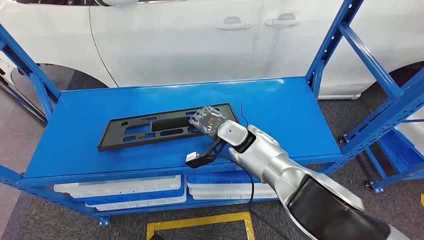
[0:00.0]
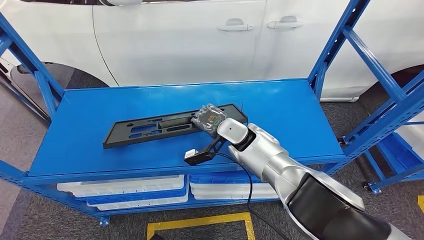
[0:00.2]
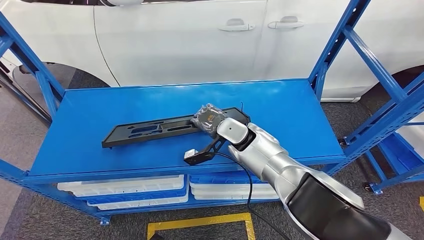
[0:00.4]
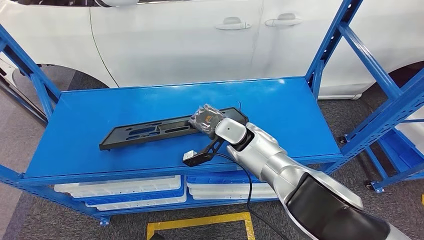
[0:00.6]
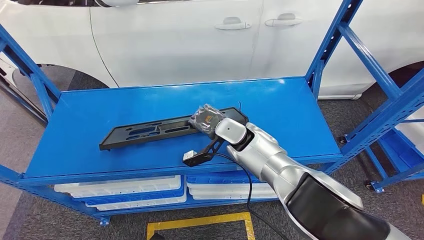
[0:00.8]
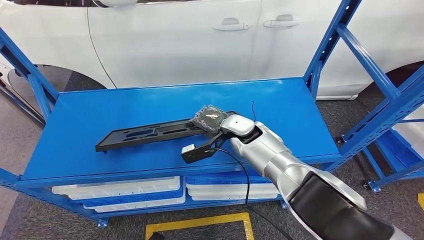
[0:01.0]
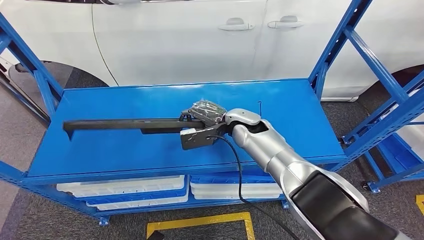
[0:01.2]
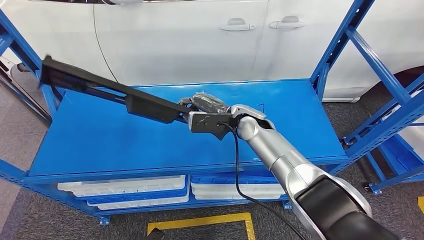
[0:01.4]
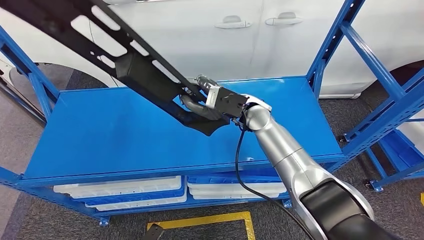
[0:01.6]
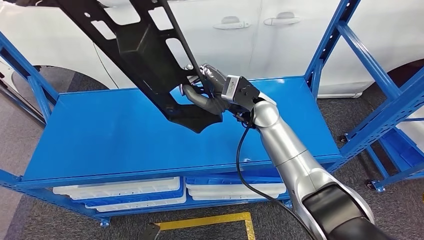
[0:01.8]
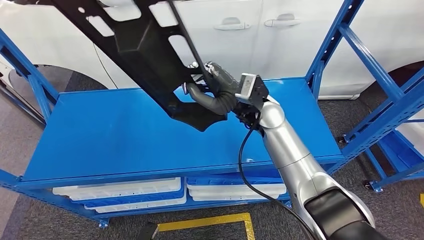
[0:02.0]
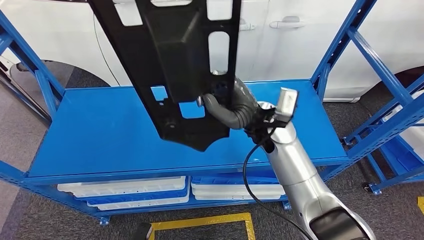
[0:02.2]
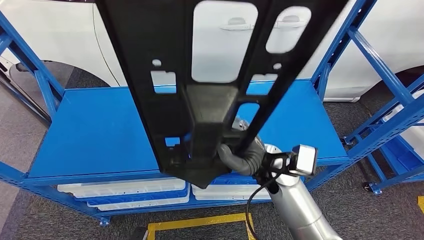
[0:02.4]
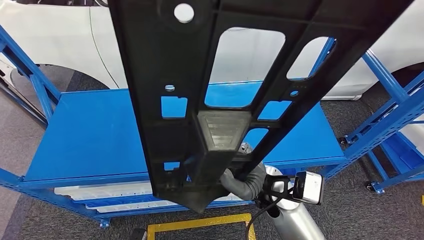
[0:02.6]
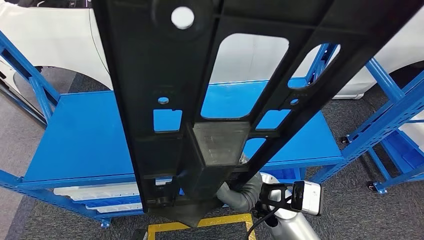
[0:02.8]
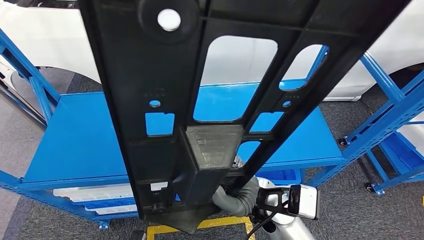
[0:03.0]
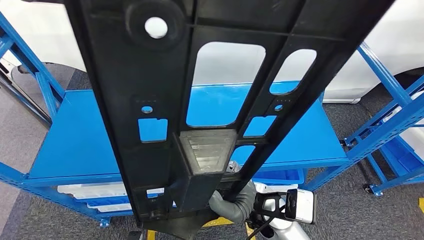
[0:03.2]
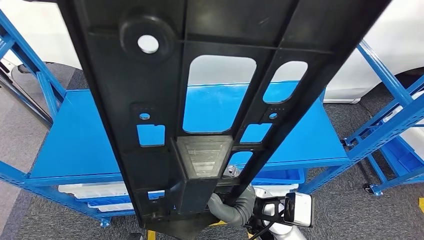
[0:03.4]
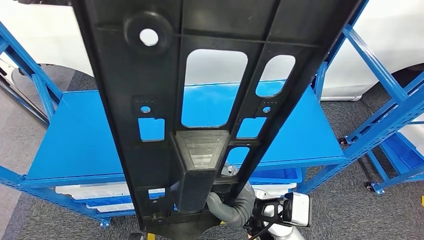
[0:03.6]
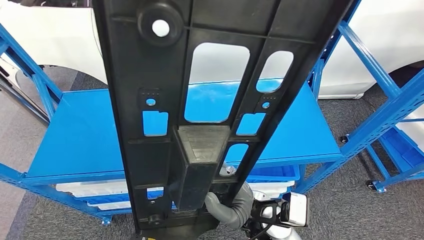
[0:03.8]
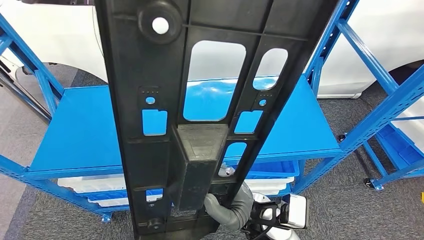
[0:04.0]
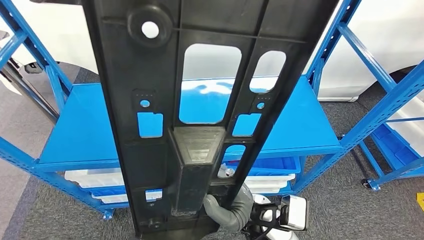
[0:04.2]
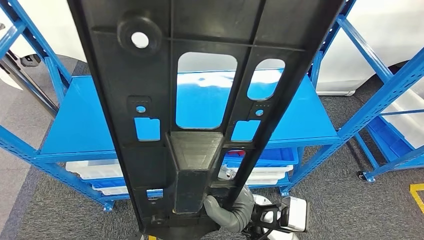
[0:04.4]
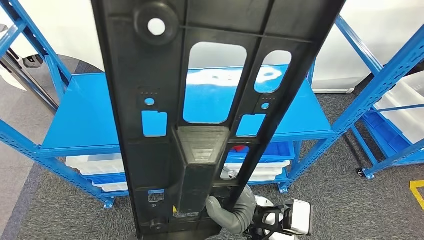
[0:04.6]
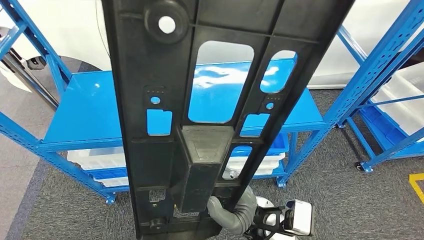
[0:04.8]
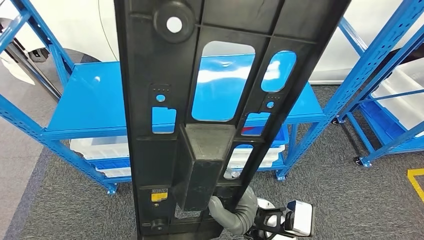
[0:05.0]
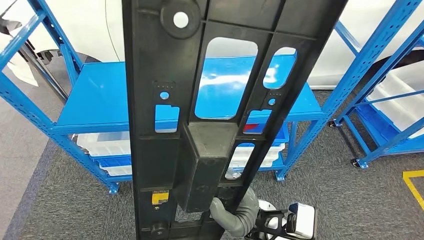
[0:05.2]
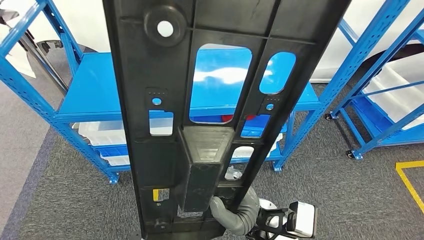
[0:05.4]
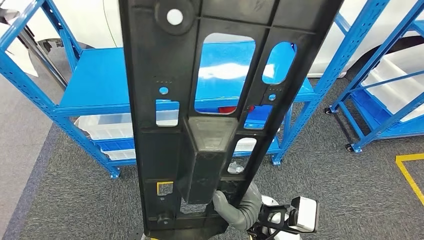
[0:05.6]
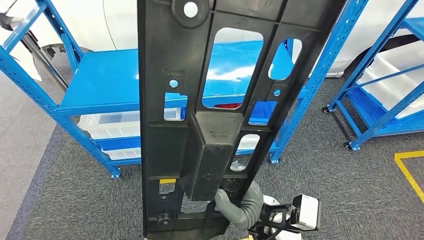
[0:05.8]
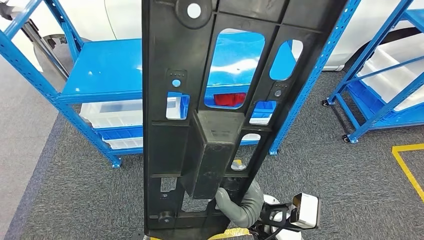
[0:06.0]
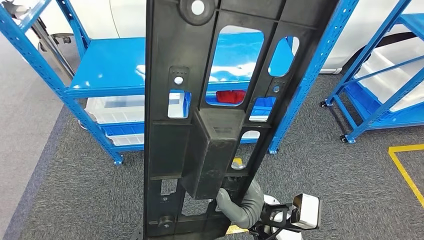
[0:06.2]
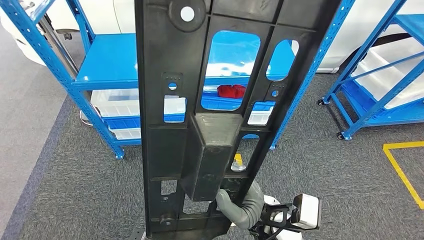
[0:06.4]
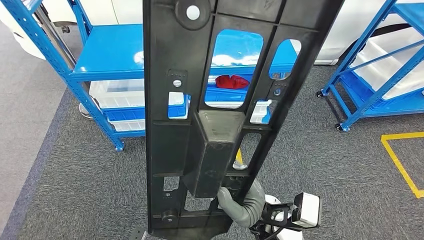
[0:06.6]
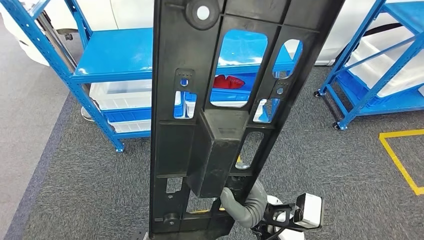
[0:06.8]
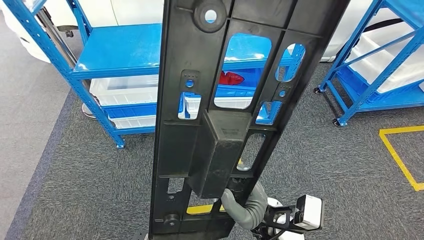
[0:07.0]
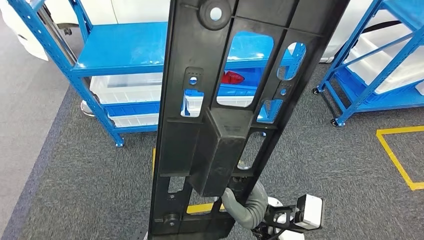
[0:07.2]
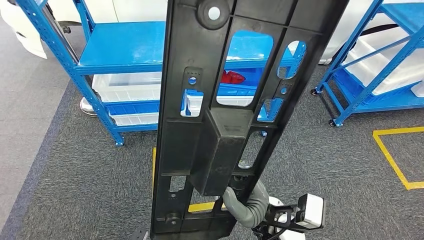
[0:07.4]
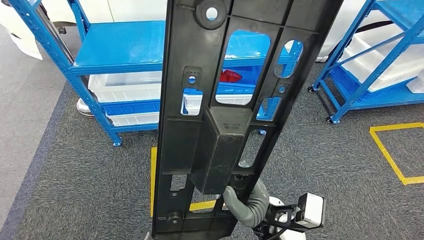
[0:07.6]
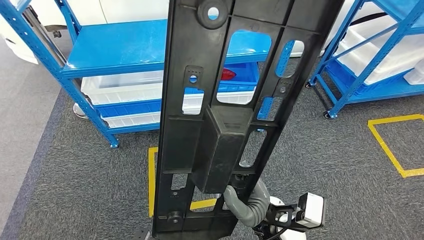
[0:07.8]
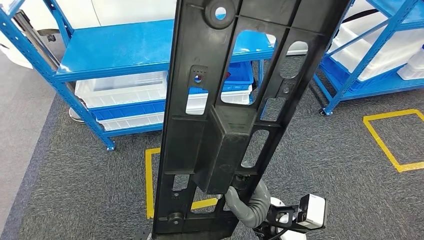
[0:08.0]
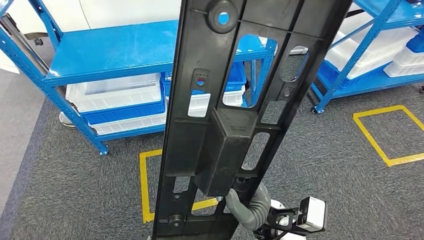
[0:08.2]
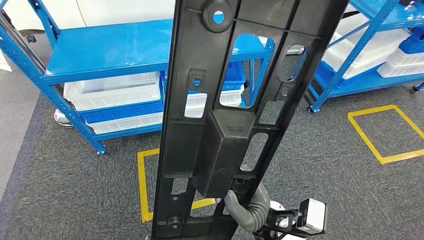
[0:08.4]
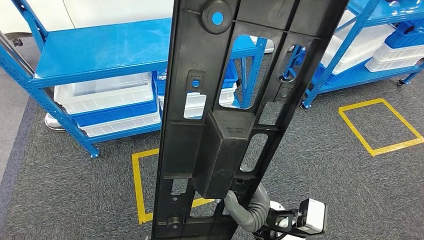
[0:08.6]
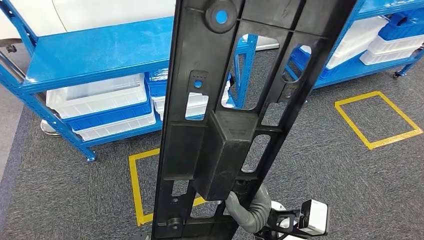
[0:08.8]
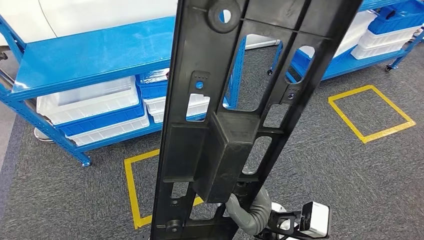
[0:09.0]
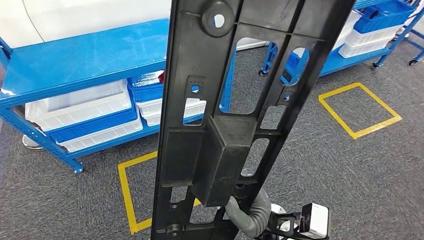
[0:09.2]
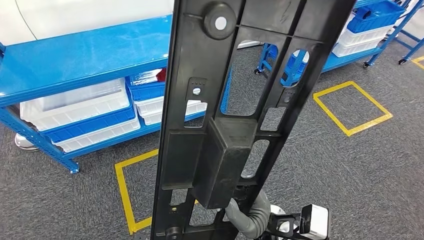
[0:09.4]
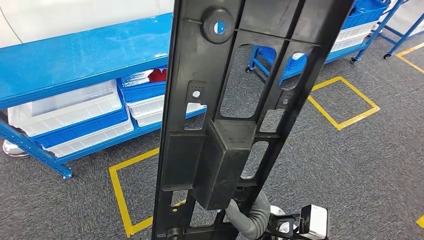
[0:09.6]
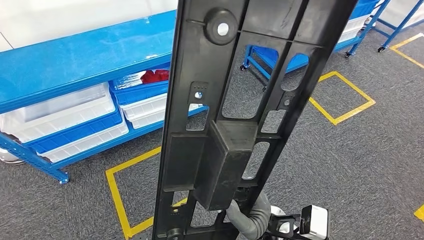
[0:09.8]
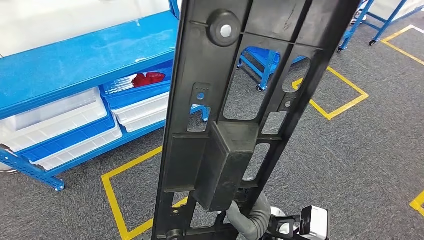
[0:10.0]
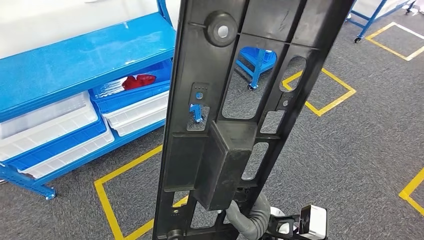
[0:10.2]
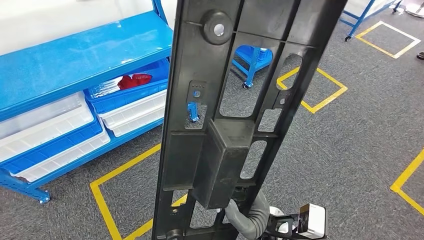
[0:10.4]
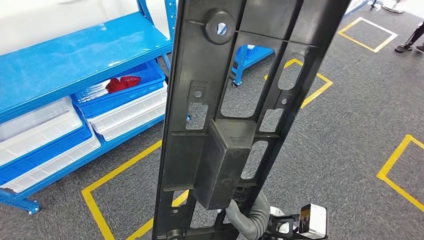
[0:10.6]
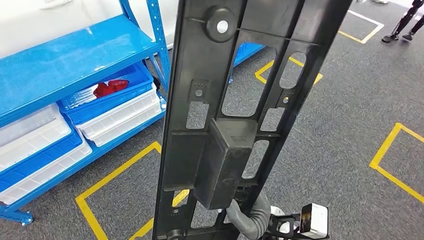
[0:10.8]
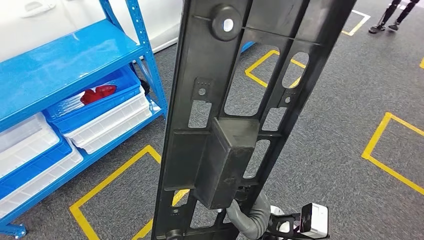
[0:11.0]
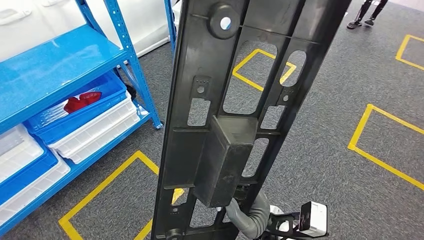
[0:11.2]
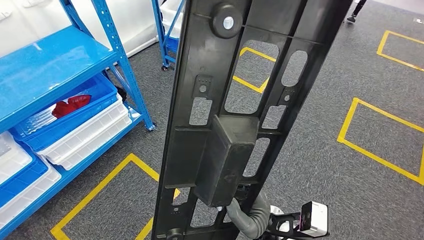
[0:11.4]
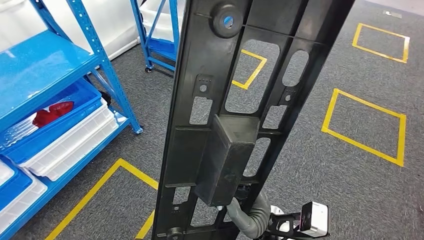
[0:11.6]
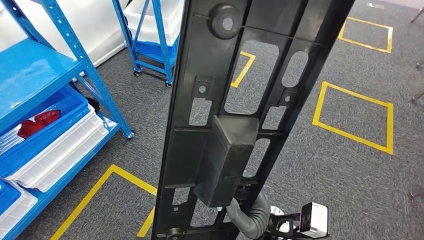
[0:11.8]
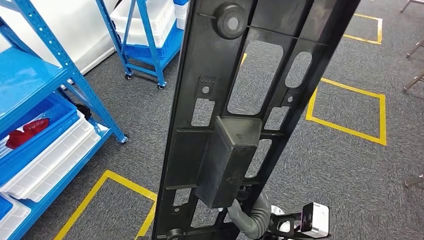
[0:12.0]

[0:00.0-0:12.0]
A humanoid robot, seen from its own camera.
Step, 0:00.0 to 0:05.6: Pick up the large material from the shelf.

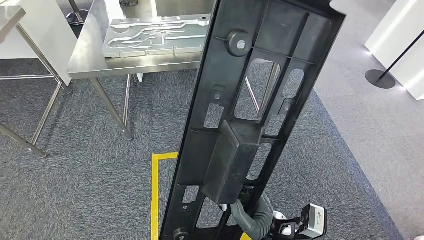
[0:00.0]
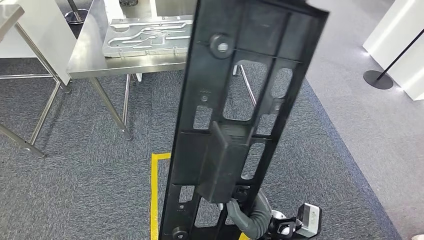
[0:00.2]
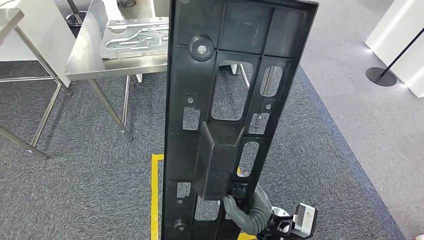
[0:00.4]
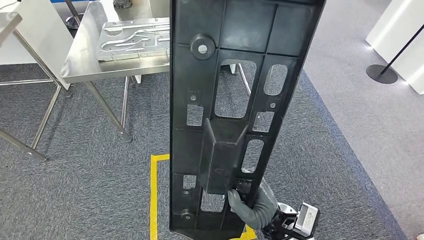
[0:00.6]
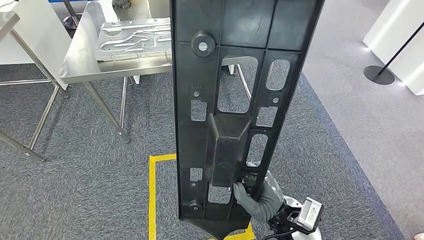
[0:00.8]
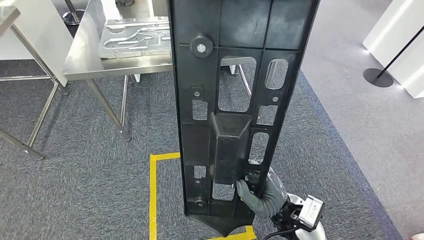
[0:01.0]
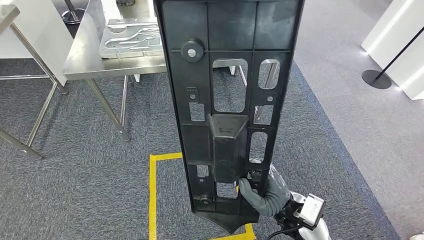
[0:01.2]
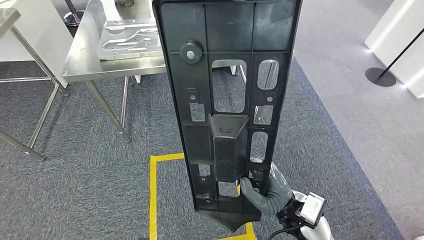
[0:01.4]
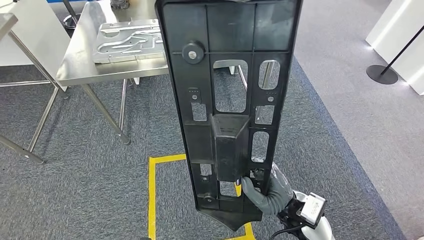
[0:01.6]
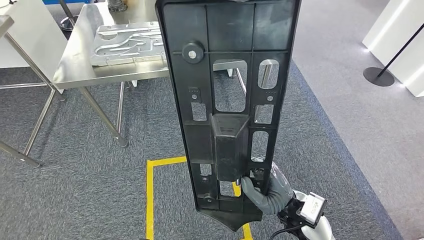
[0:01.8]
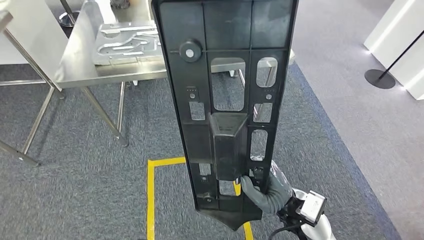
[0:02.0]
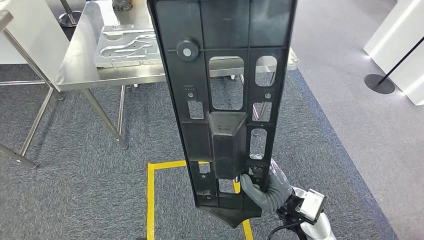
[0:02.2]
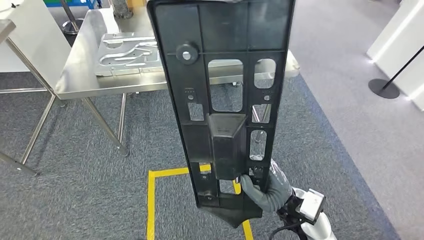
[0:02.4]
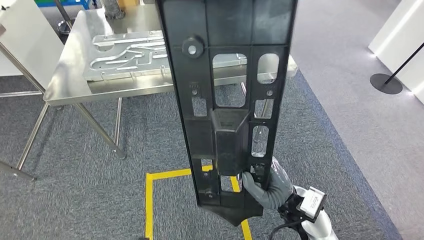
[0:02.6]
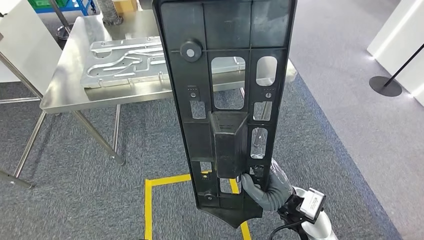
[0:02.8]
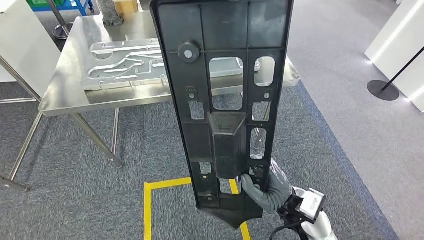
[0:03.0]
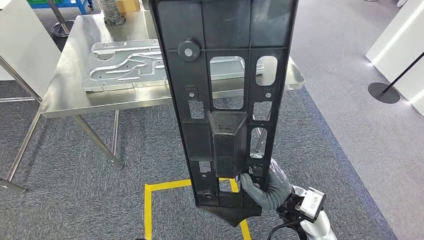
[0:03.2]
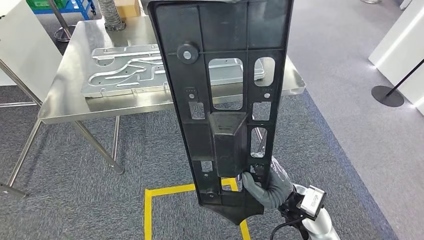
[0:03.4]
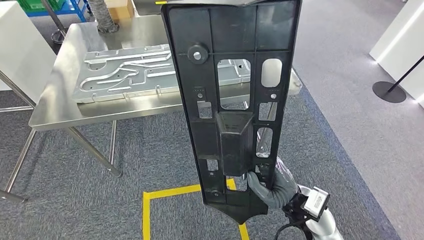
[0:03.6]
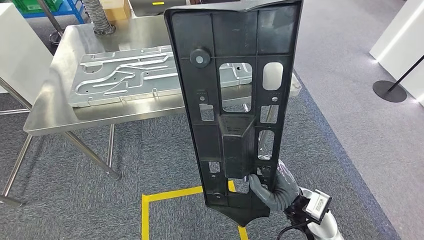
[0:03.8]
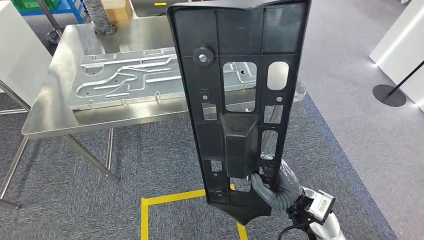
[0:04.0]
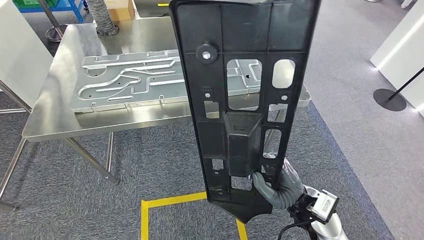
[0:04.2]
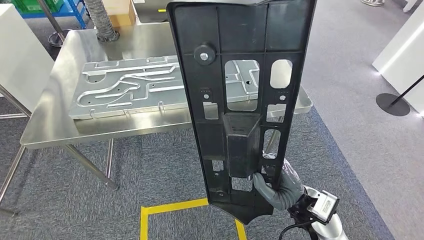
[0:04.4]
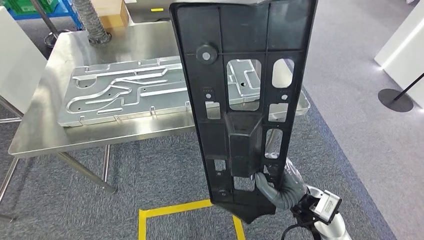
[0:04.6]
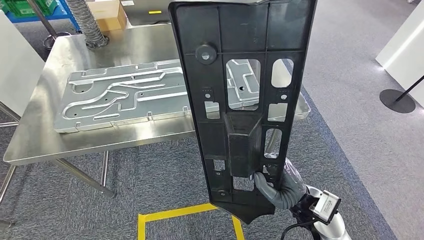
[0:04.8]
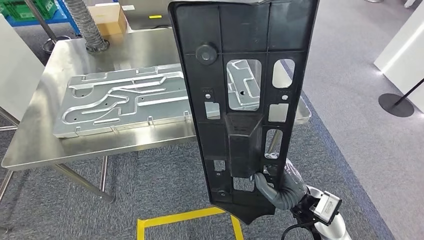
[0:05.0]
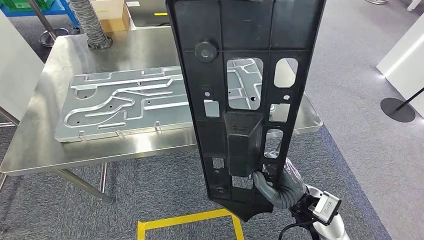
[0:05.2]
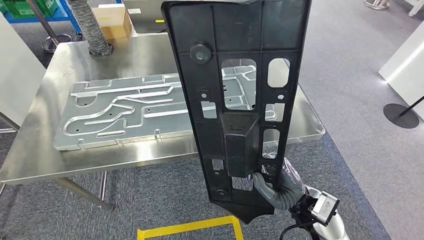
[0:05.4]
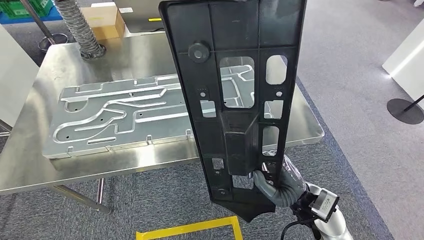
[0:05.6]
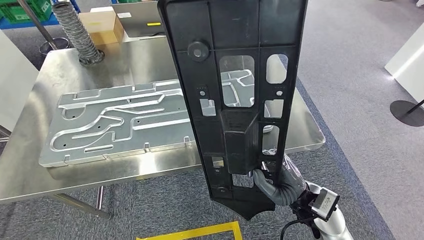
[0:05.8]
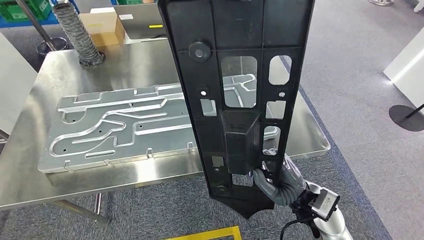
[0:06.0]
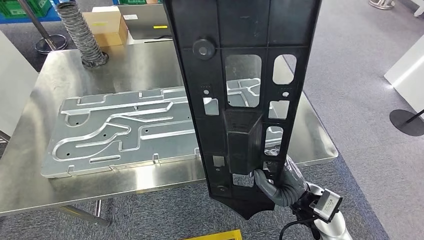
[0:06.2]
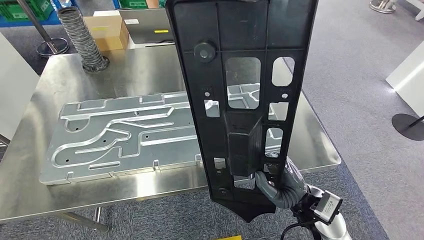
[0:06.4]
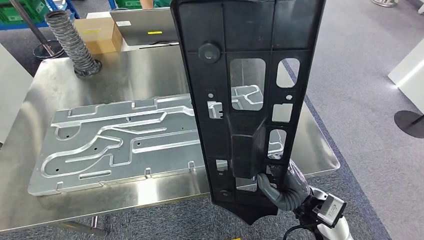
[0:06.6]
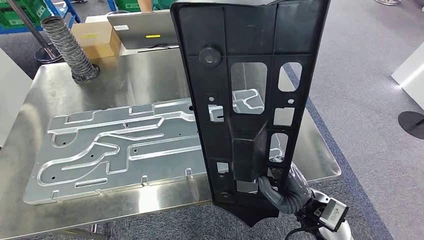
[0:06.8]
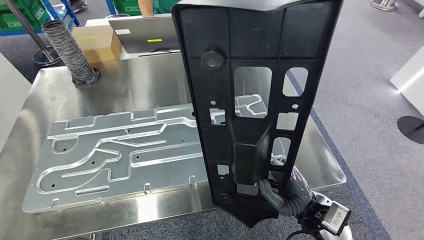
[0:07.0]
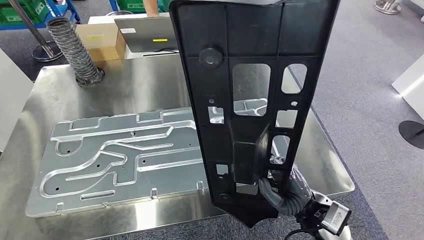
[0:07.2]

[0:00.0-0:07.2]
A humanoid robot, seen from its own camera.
Step, 0:00.0 to 0:03.8: Move the large material to the workbench.
